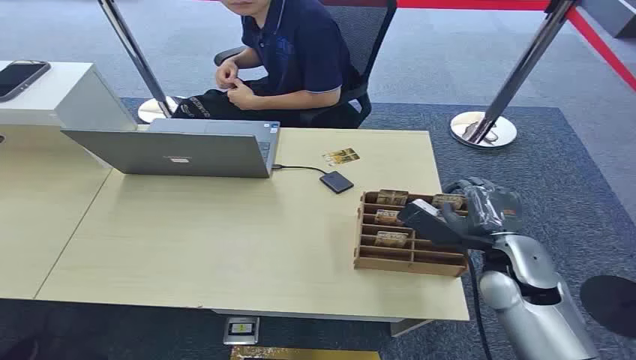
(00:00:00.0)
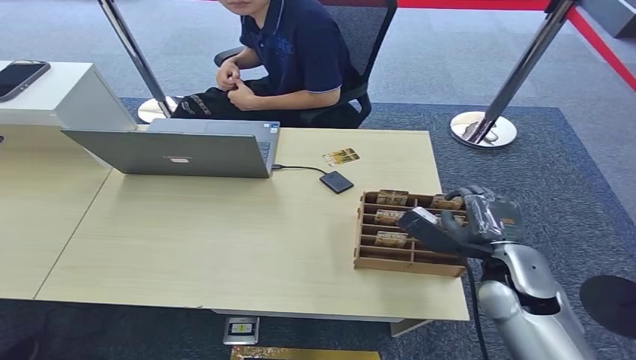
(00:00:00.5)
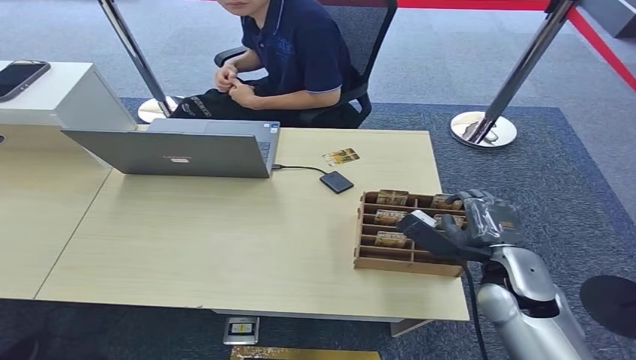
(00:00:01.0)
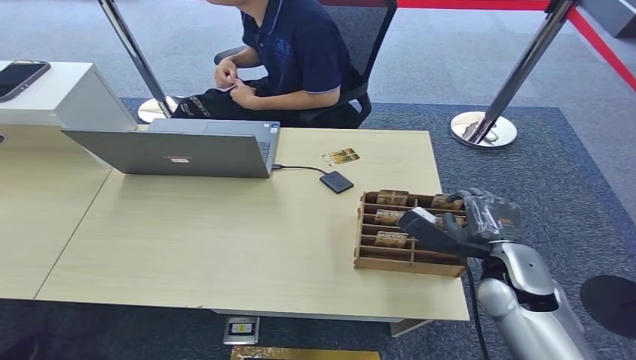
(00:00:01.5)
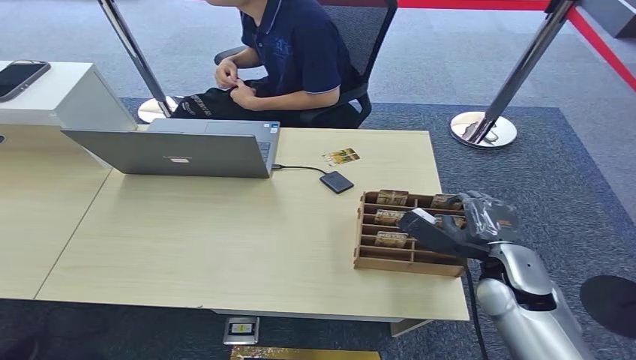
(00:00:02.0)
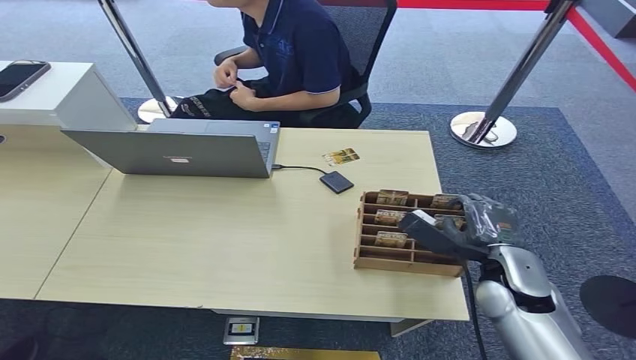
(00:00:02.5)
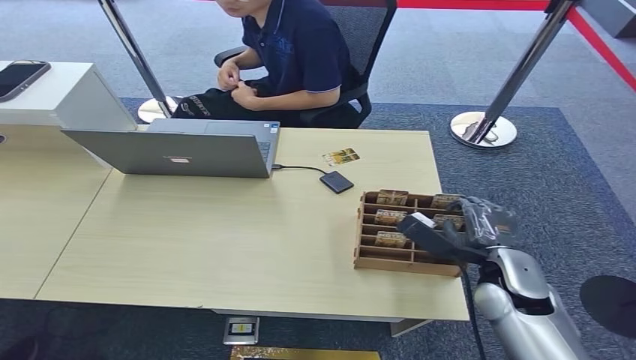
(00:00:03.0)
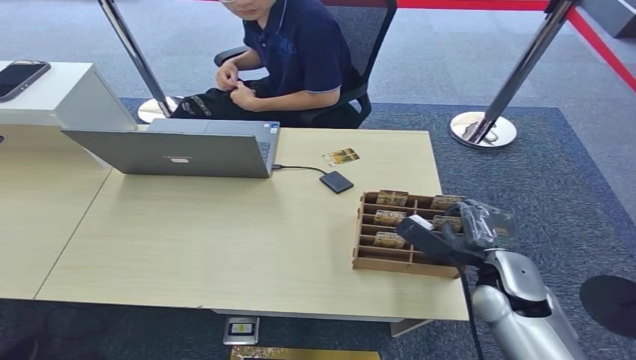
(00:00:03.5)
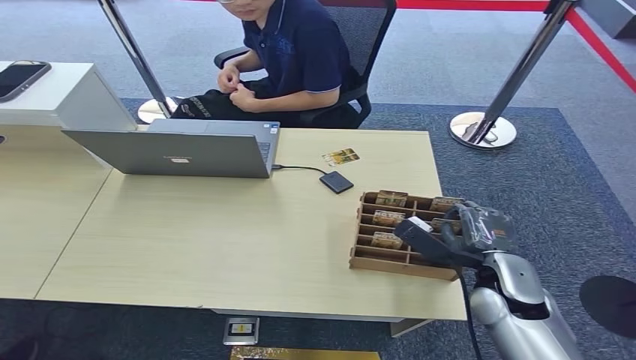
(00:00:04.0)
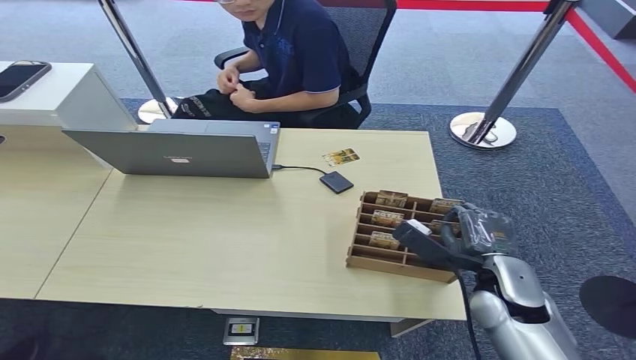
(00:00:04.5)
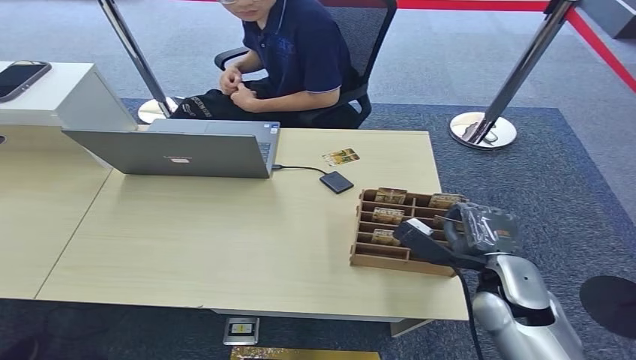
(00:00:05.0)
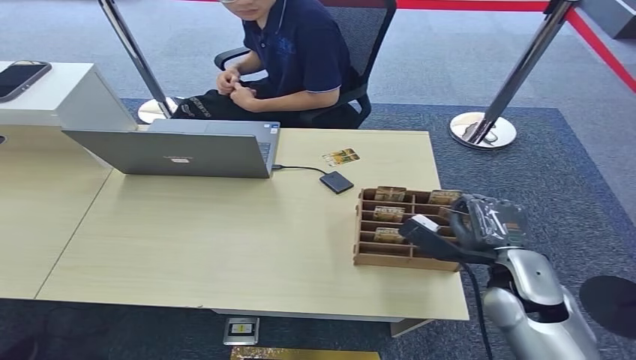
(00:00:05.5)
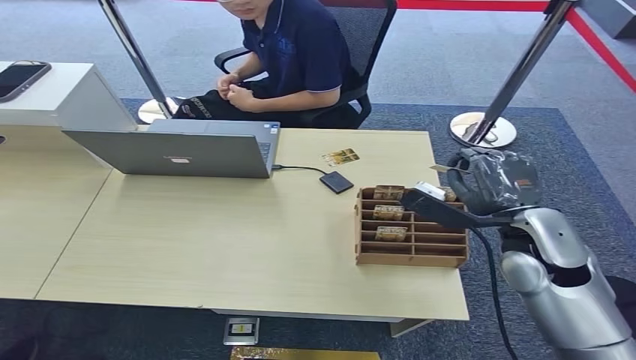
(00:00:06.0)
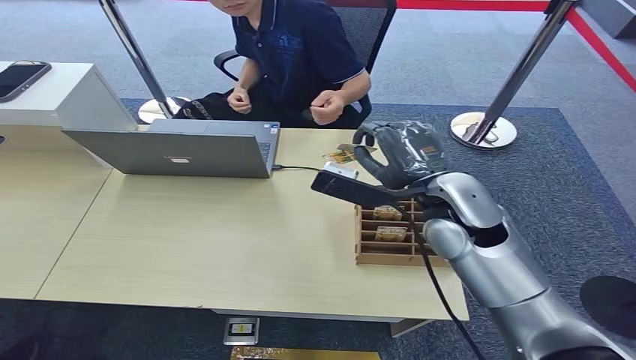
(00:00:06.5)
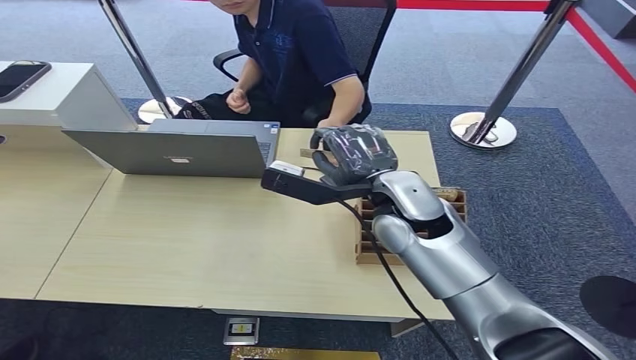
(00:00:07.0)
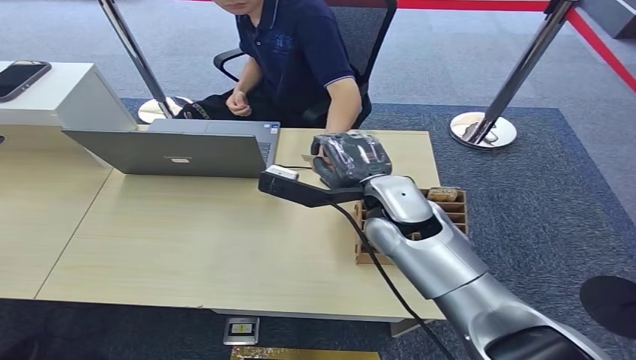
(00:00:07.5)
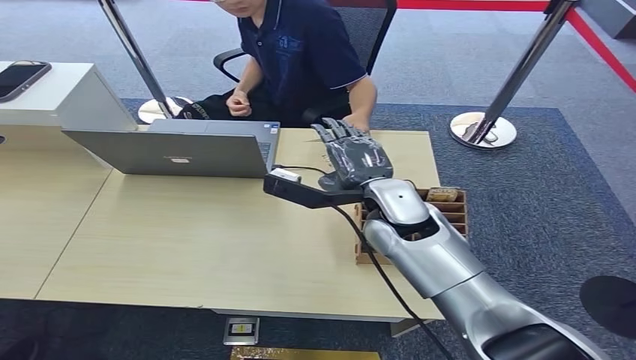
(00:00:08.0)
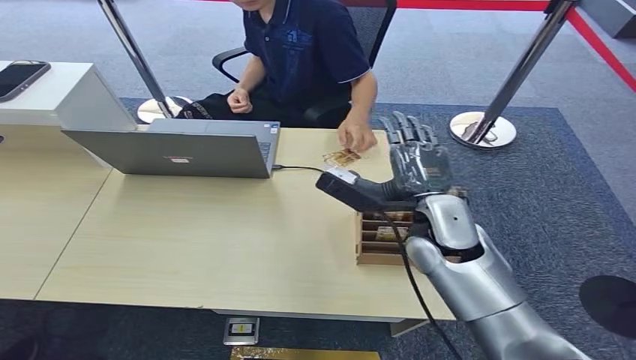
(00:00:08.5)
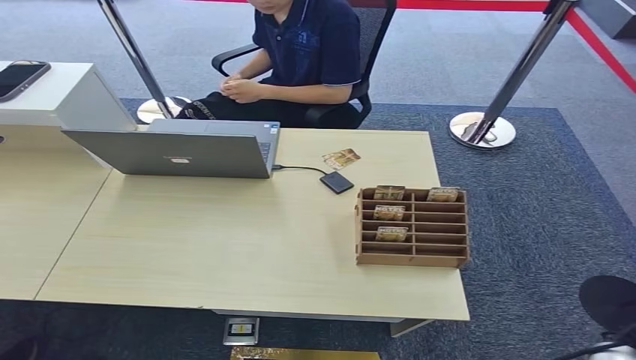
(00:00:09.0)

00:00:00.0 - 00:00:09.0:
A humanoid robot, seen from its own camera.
Step, 00:00:00.0 - 00:00:05.5: Pick up the key card from the card box.
Step, 00:00:06.5 - 00:00:09.0: Hand the key card to the target.
00:00:02.0 - 00:00:04.5: There are only small adjustments of the hands.
00:00:04.5 - 00:00:07.0: The right hand heads to the left, upward and forward, covering some 20 cm.
00:00:07.0 - 00:00:09.0: The right hand heads to the right, backward and downward, covering some 30 cm.
